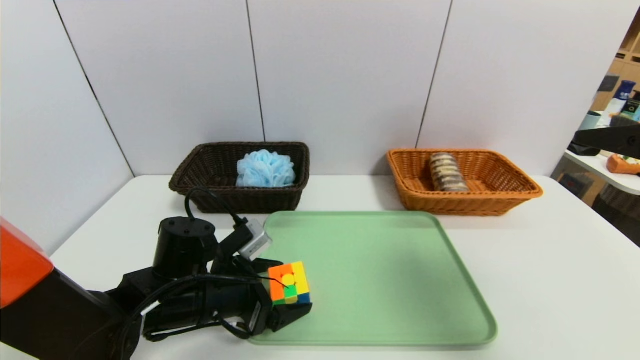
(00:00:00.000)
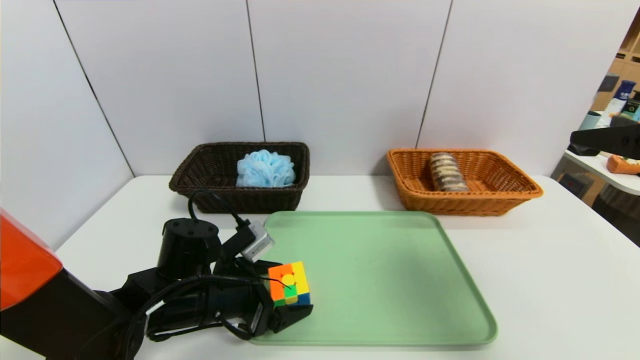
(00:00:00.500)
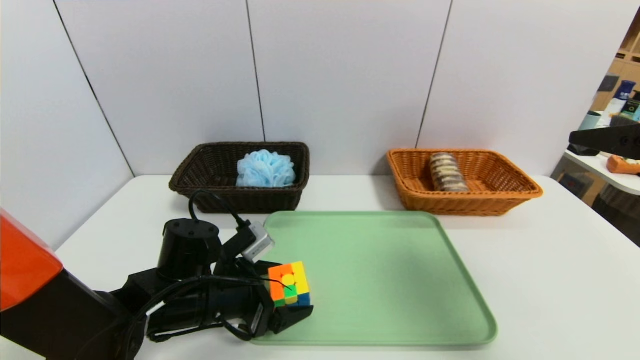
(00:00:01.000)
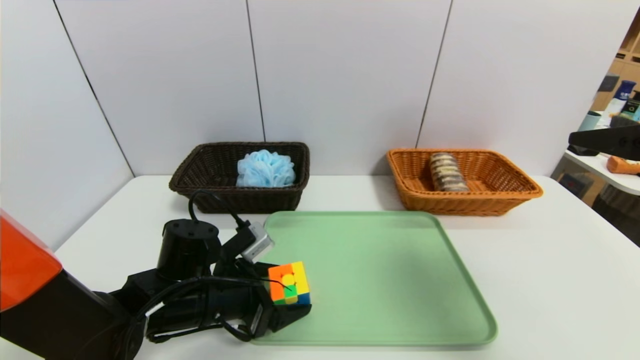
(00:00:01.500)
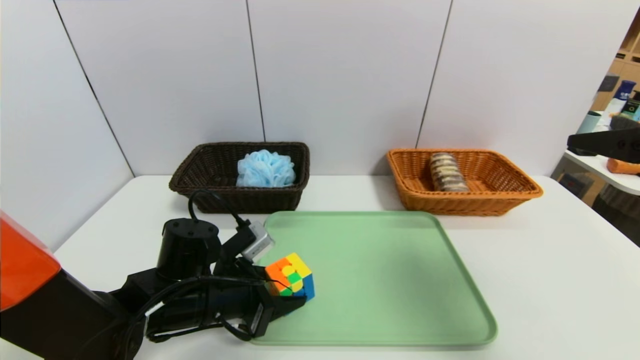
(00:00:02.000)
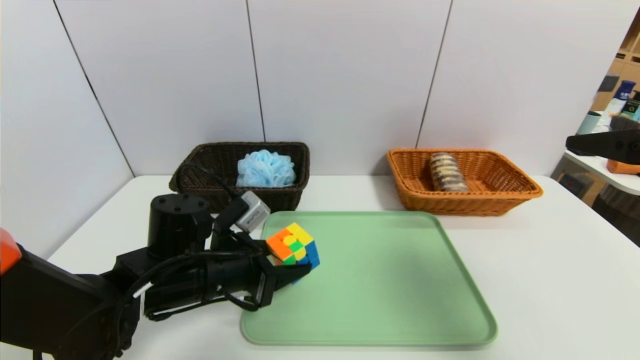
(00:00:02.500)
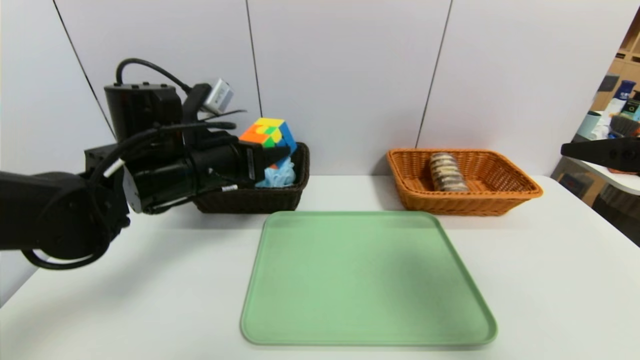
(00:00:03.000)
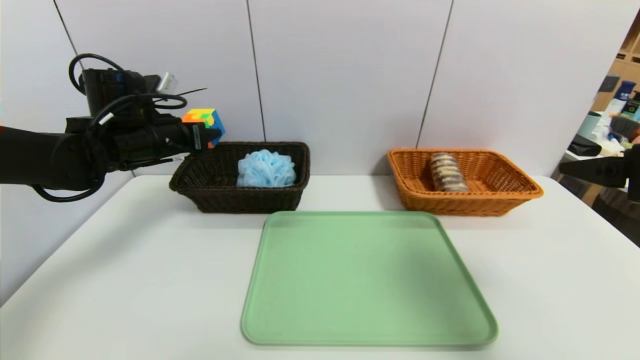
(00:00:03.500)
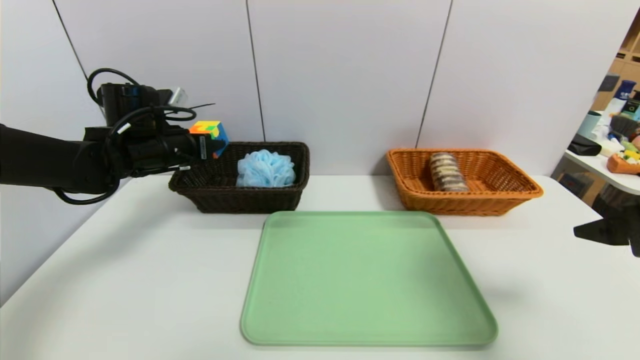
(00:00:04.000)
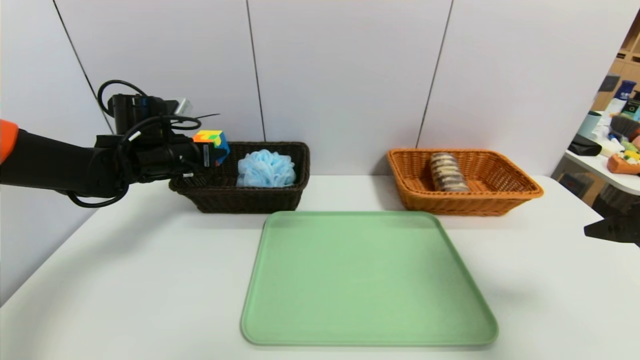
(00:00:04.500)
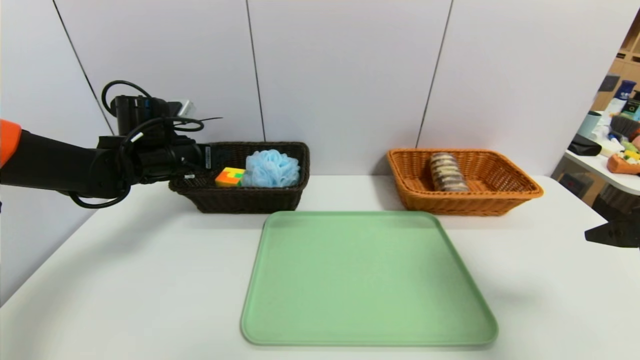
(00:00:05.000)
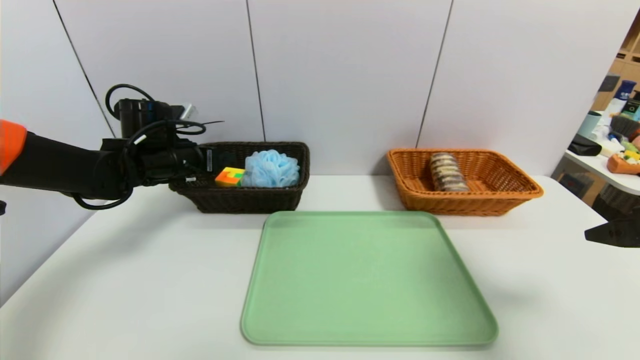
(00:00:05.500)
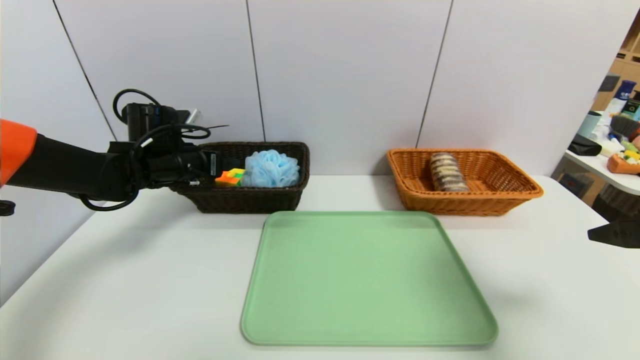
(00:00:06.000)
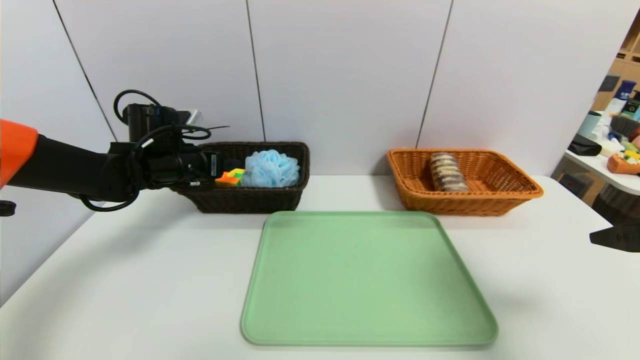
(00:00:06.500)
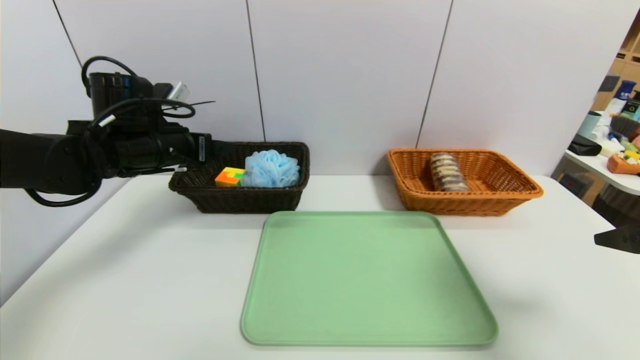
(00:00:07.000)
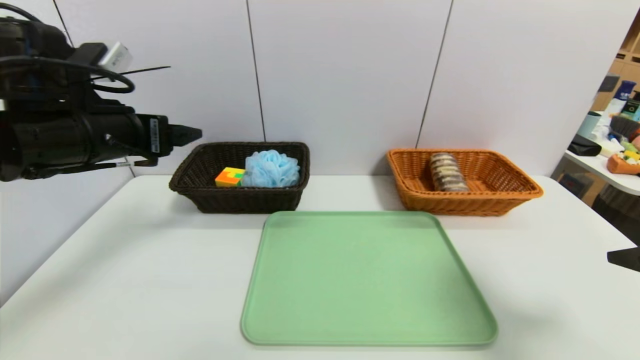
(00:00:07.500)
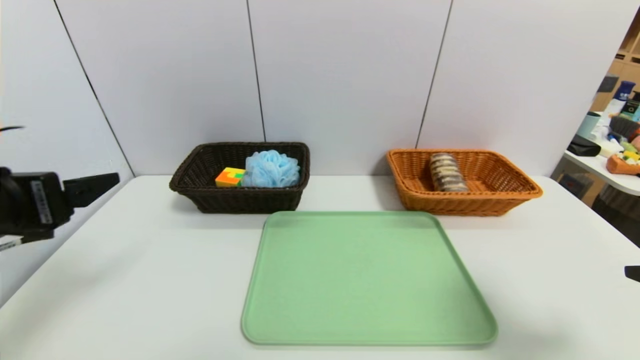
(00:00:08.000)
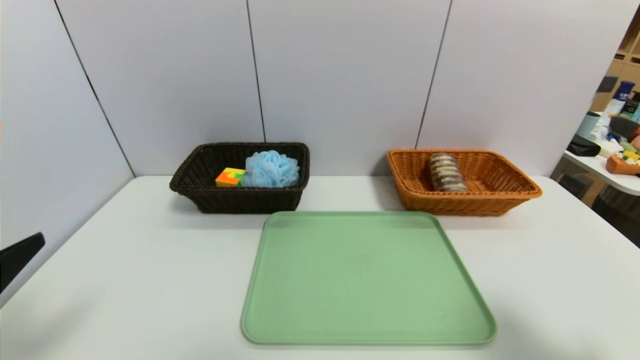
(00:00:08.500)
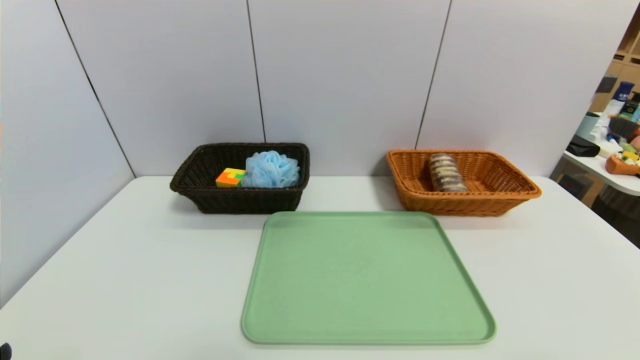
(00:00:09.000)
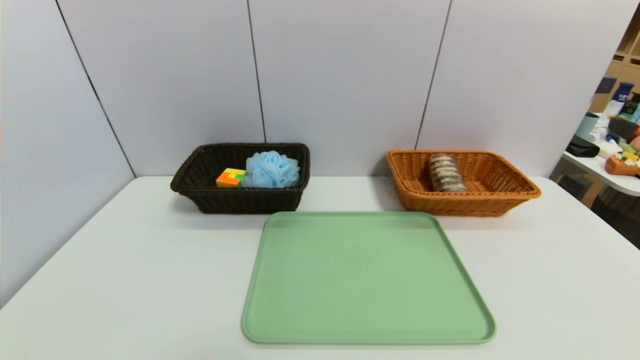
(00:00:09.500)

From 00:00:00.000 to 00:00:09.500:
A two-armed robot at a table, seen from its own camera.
Task of the whole recording: place the food in the right basket with the right gripper, and place the non food items in the left basket with the left gripper.
Step, from 00:00:00.000 to 00:00:05.000: Grasp the rubiks cube and put it in the left basket.
From 00:00:00.000 to 00:00:02.000: The left gripper closes.
From 00:00:02.000 to 00:00:04.000: The right gripper is displaced downward by about 5 cm, while the left gripper shifts some 25 cm forward, upward and to the left.
From 00:00:04.000 to 00:00:05.500: The left gripper opens.
From 00:00:05.500 to 00:00:07.500: The left gripper goes roughly 15 cm backward and upward.
From 00:00:07.500 to 00:00:09.500: The right gripper heads backward, covering about 20 cm; the left gripper goes roughly 35 cm backward and downward.
